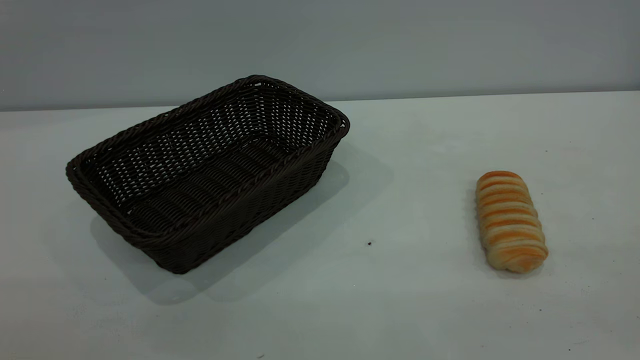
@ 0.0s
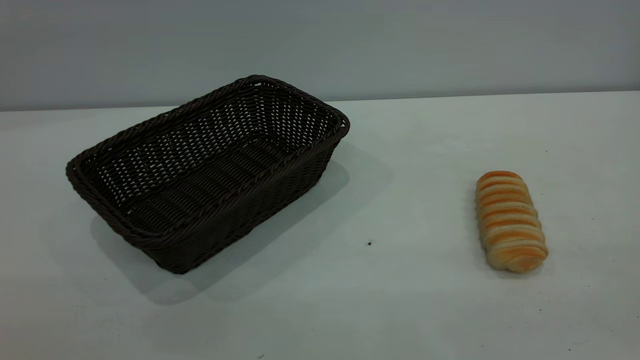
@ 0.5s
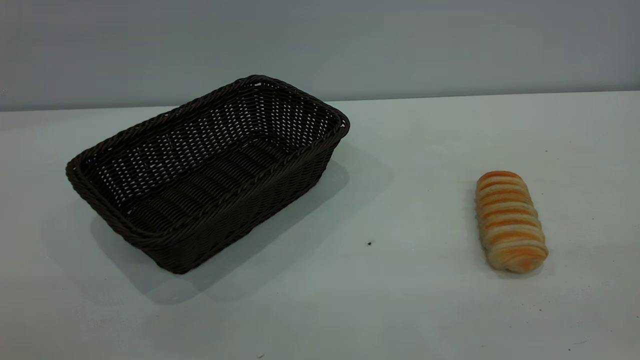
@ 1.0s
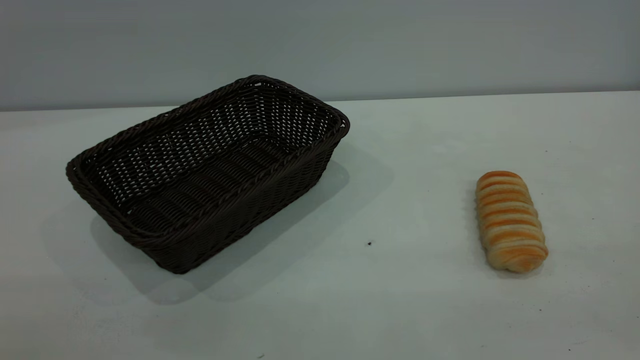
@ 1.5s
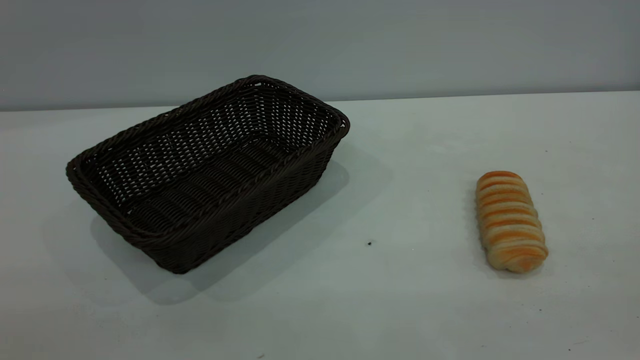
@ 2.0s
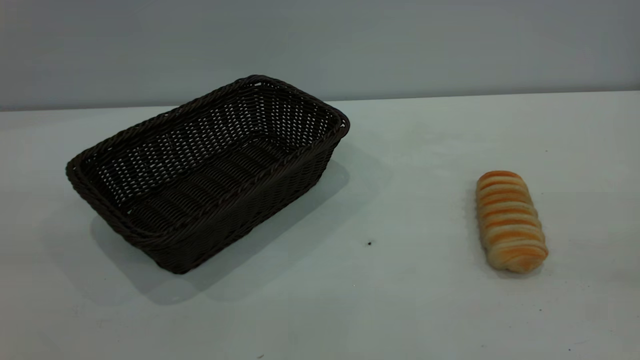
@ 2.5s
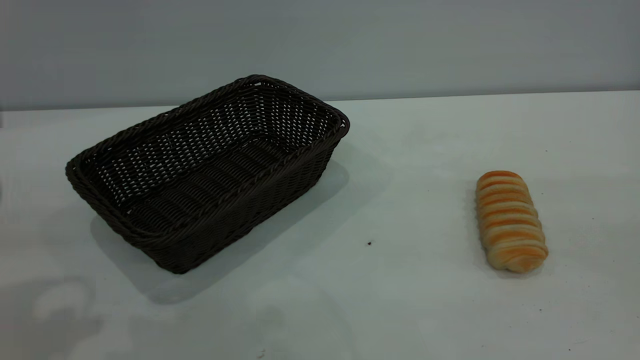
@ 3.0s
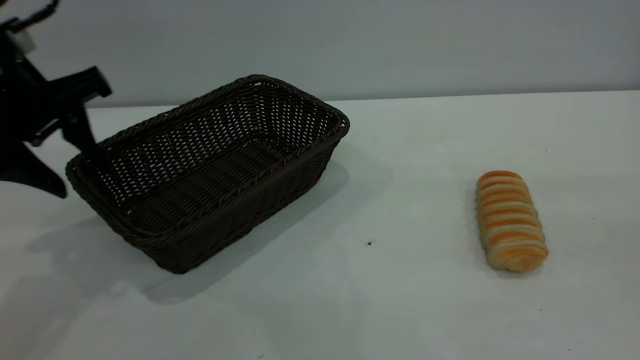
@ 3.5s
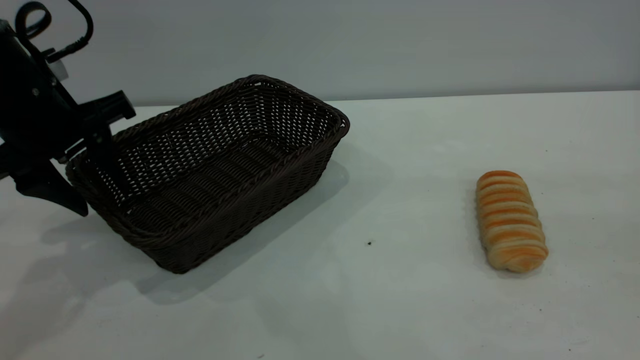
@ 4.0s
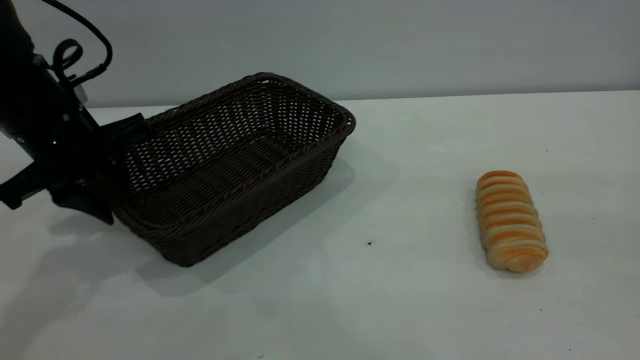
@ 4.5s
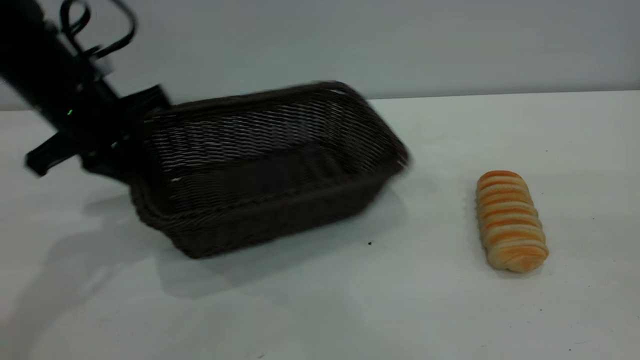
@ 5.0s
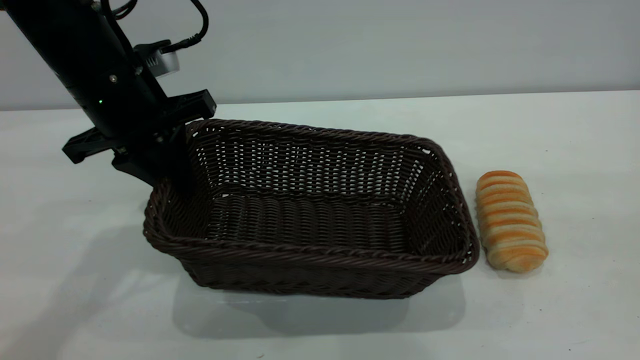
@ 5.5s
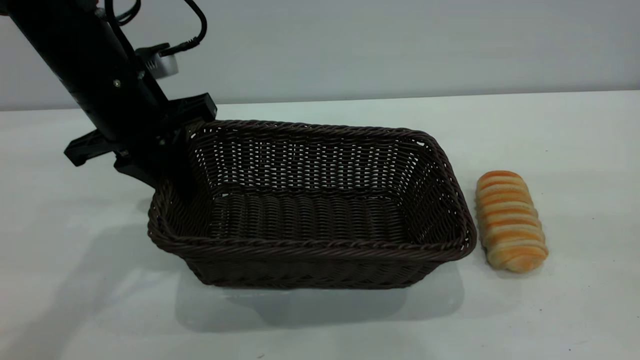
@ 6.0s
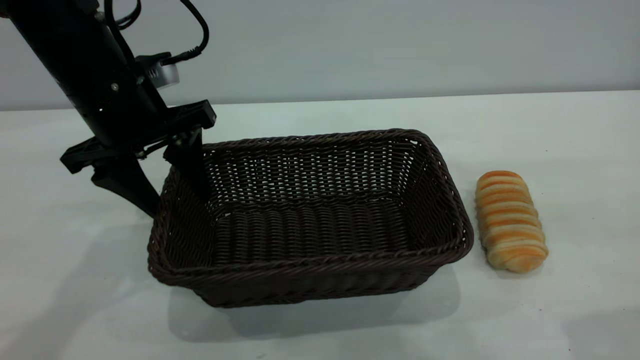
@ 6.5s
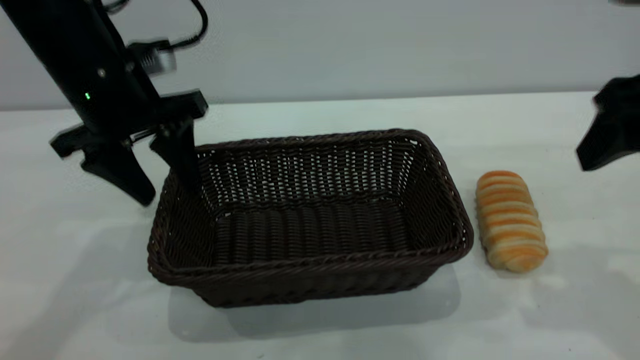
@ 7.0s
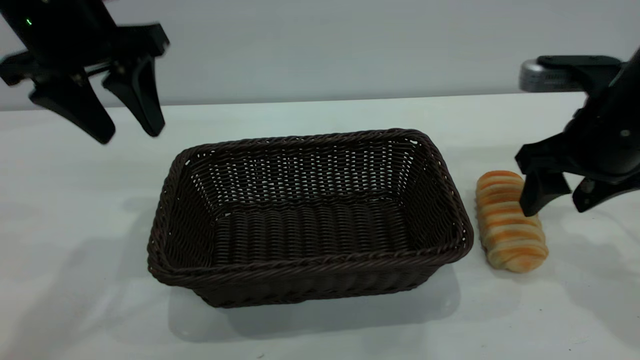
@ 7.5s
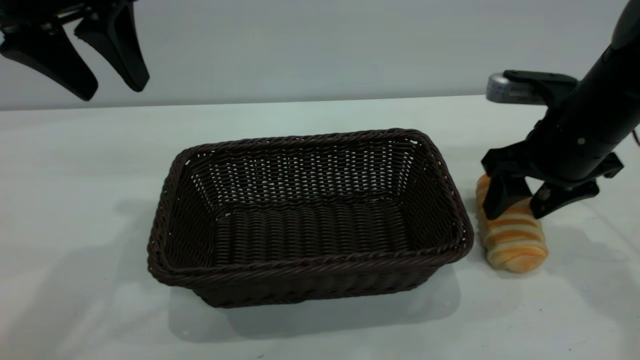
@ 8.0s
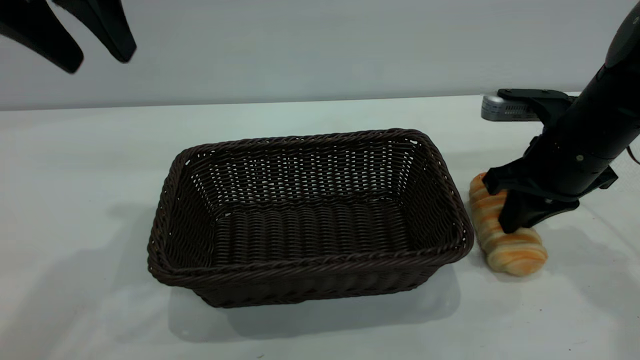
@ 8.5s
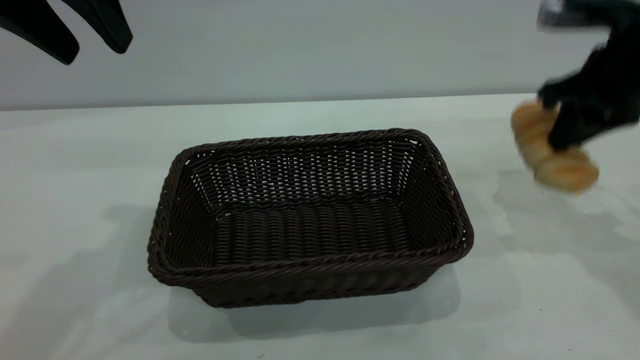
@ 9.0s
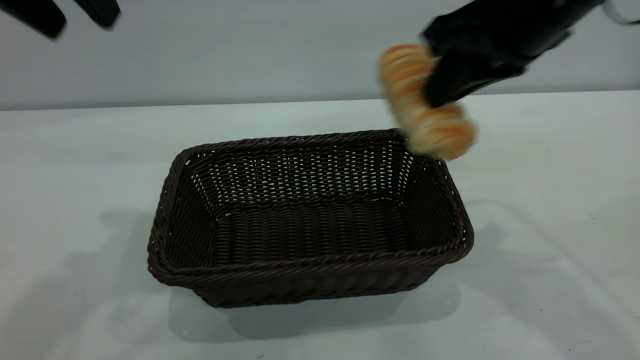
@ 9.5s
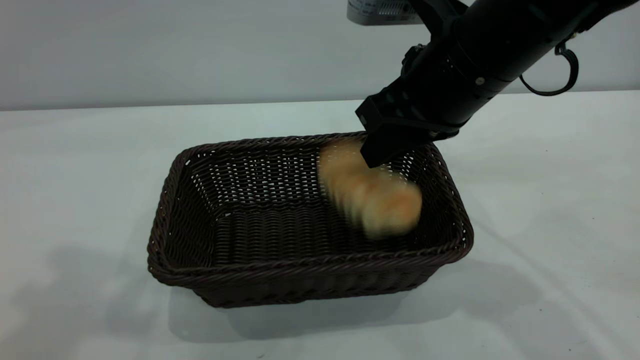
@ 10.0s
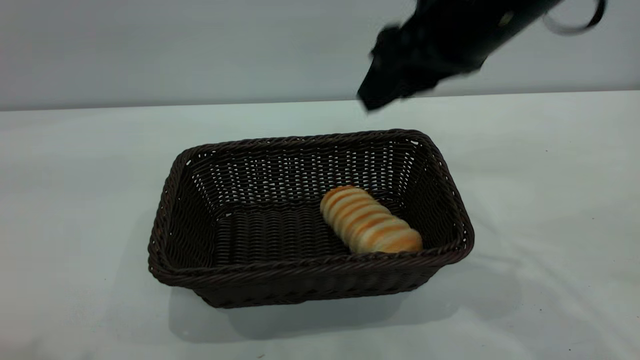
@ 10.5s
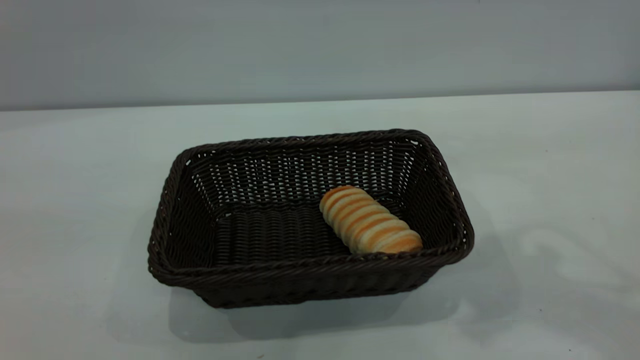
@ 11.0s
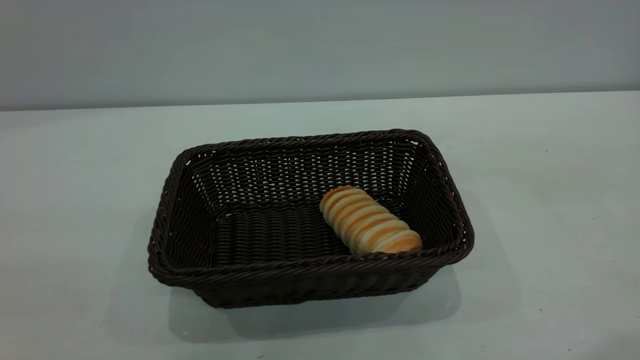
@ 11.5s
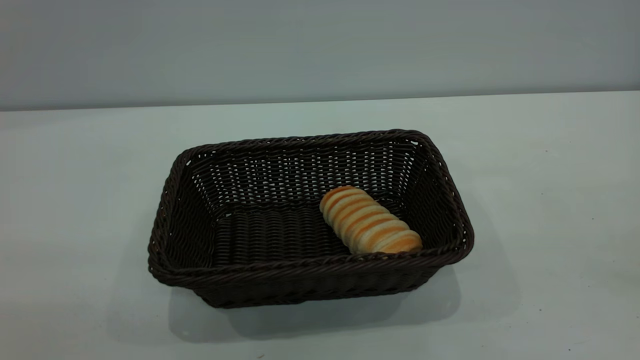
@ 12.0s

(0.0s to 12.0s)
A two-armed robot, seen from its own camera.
Task of the whole recording: One hand grasps the black basket and places it in the middle of the table, while the other hand picks up the long bread and puts it into the black basket.
Step, 0.0s - 7.0s: Move the basket to the center of view.
Step, 9.5s - 10.5s: place the bread into the basket.
2.0s - 4.0s: The left gripper heads forward and downward, covering approximately 40 cm.
4.0s - 6.0s: The left gripper shifts about 5 cm to the right, and closes its fingers.
6.0s - 8.0s: The left gripper is displaced upward by roughly 10 cm, and opens its fingers. The right gripper heads forward and downward, covering approximately 30 cm.
8.0s - 10.0s: The left gripper is displaced upward and backward by approximately 15 cm. Meanwhile the right gripper shifts some 15 cm to the left and upward, and closes up.
10.0s - 12.0s: The left gripper shifts some 25 cm backward and downward. The right gripper heads backward, upward and to the right, covering approximately 40 cm.

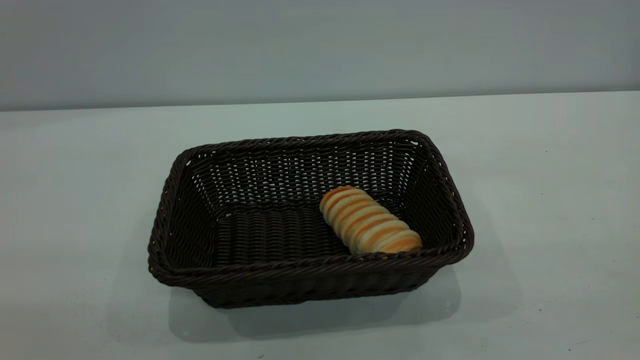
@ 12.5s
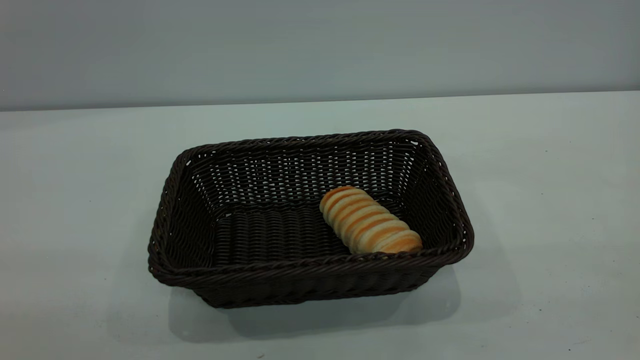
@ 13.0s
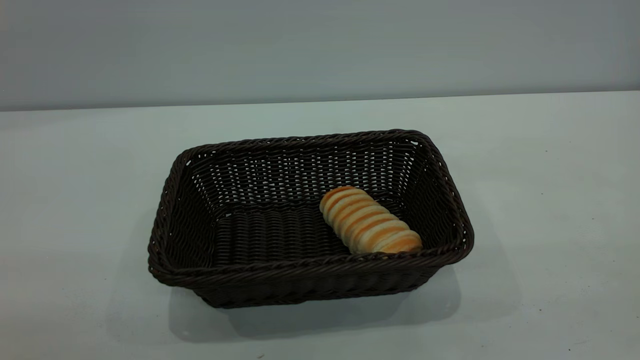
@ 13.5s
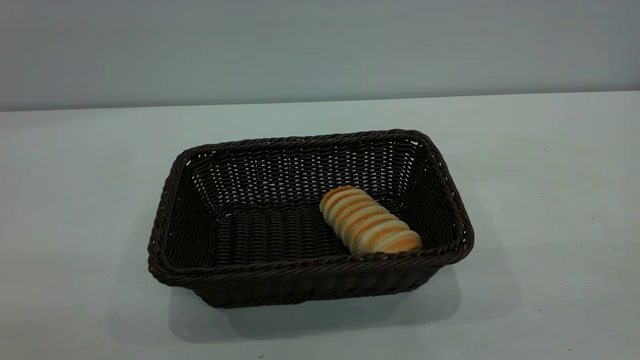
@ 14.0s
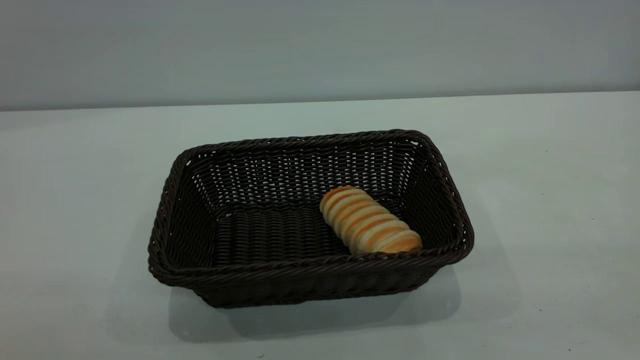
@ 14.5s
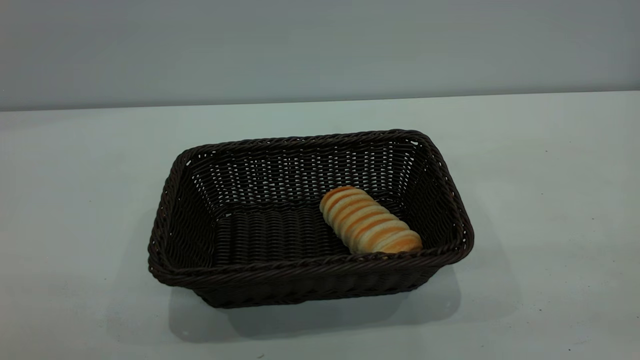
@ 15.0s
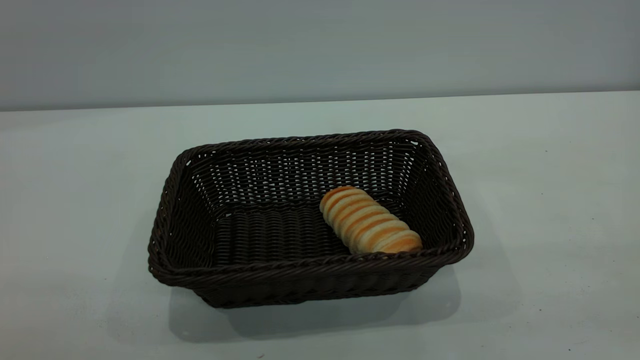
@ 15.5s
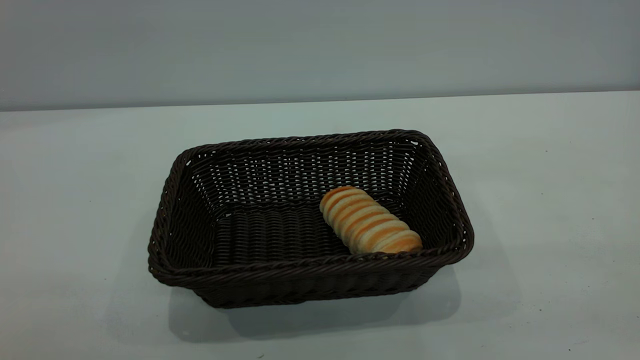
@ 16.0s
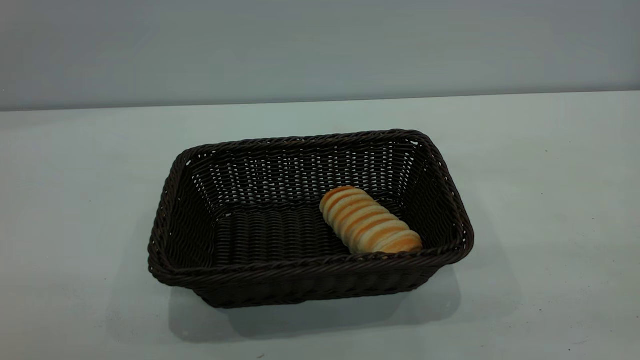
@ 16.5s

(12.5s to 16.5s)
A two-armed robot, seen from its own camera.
Task of the whole recording: One hand grasps the black basket and places it in the middle of the table, while the other hand picks up the long bread and puts it into the black basket.
14.5s - 16.5s: Neither gripper changes place.

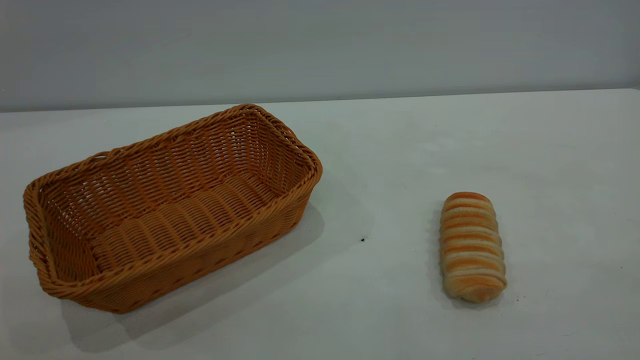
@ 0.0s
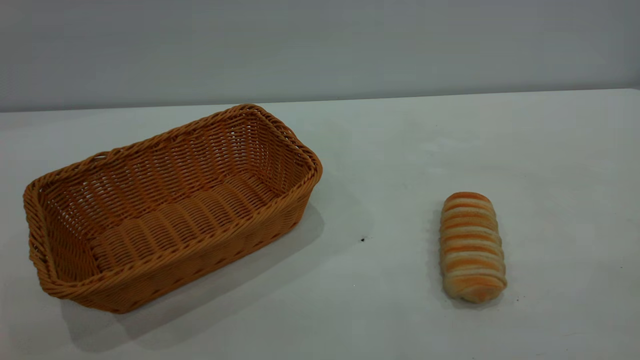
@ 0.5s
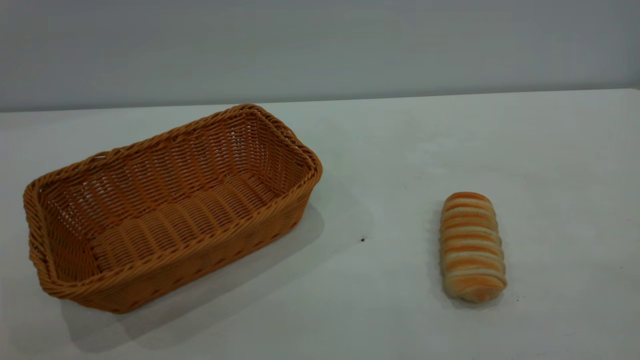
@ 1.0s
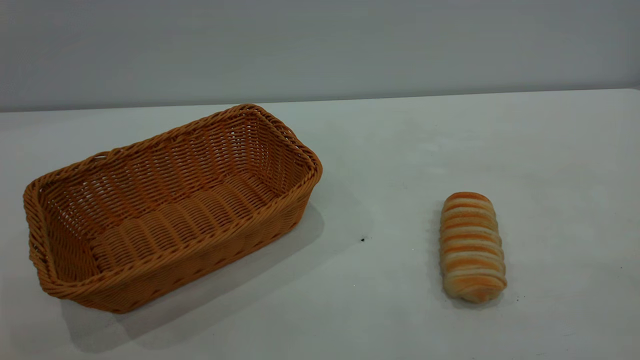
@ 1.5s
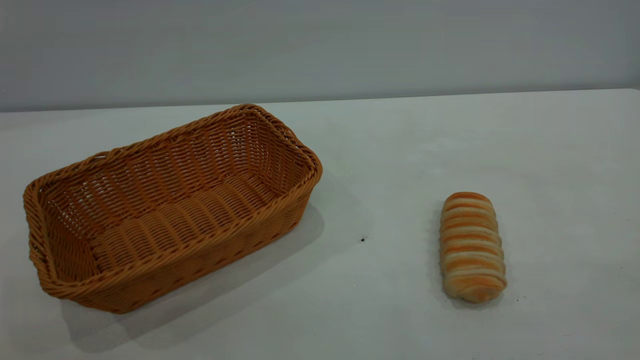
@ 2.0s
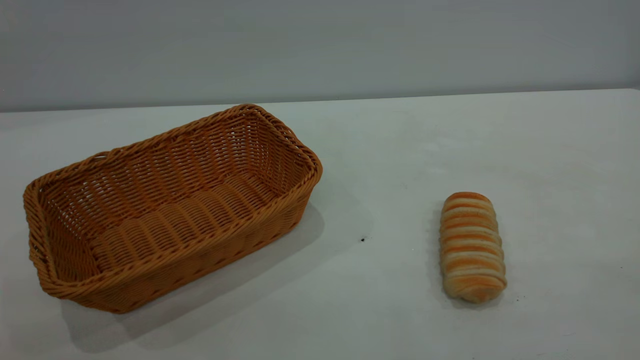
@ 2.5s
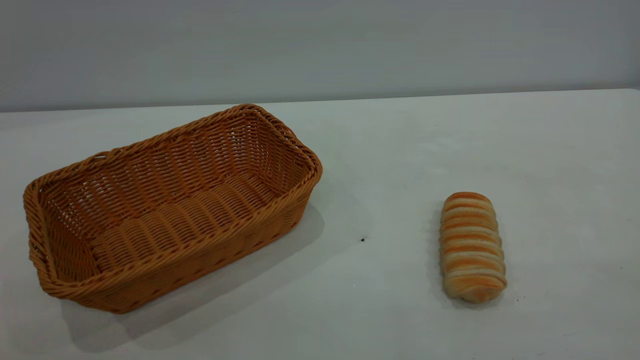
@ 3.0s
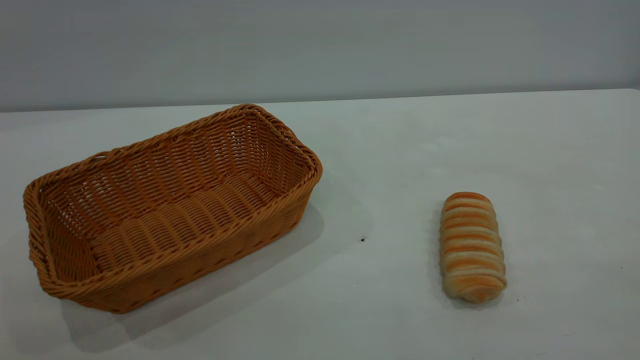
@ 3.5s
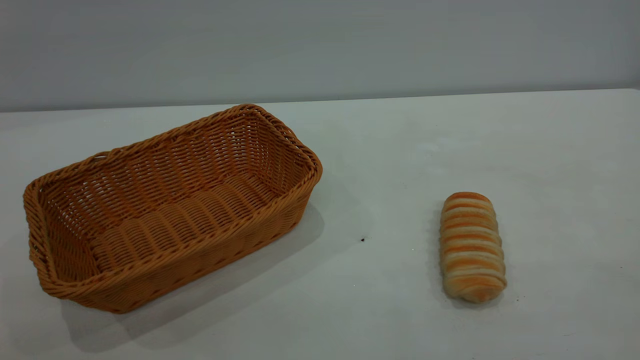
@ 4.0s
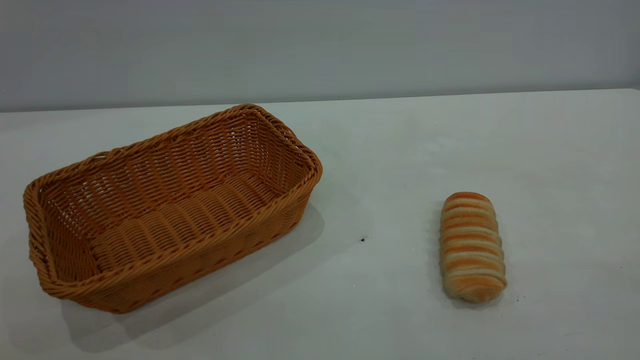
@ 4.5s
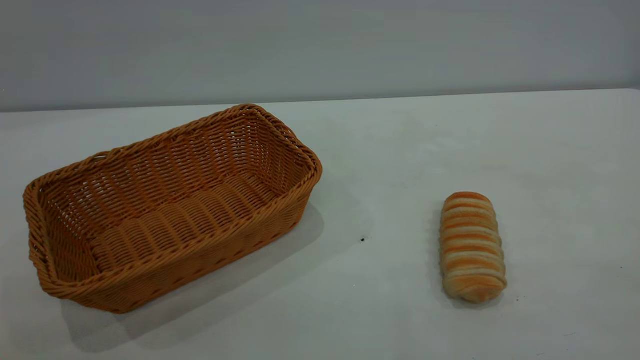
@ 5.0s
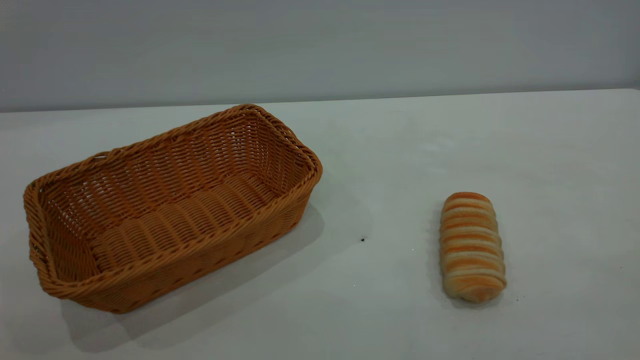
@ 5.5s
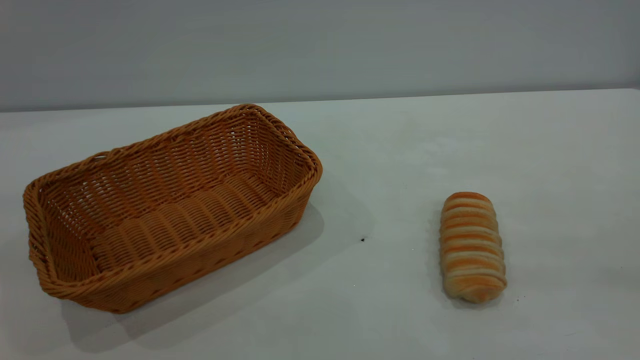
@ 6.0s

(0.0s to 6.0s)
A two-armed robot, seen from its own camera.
Task of the whole recording: One hand grasps the yellow basket and places it in the middle of the table, while the other hand picks up the long bread and puts it into the yellow basket.
0.0s - 4.0s: Both grippers stay about where they are.
